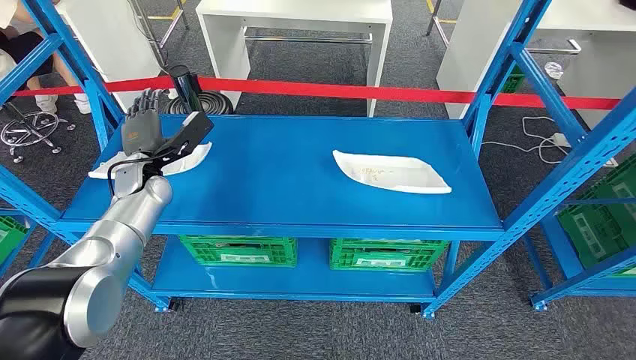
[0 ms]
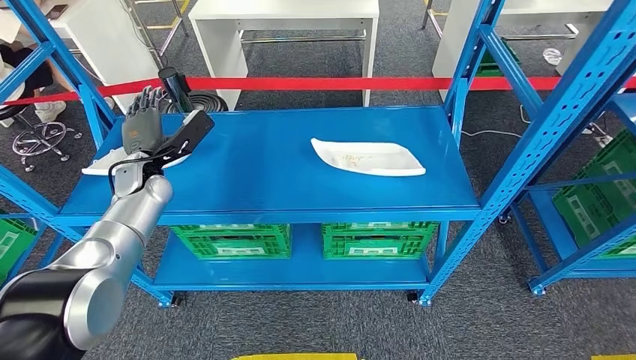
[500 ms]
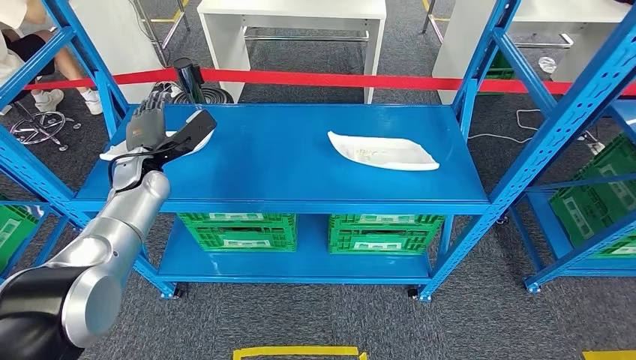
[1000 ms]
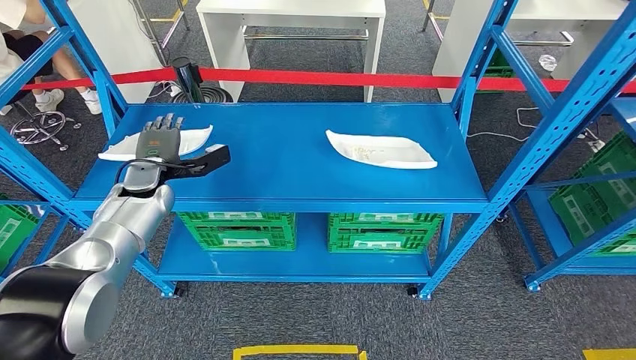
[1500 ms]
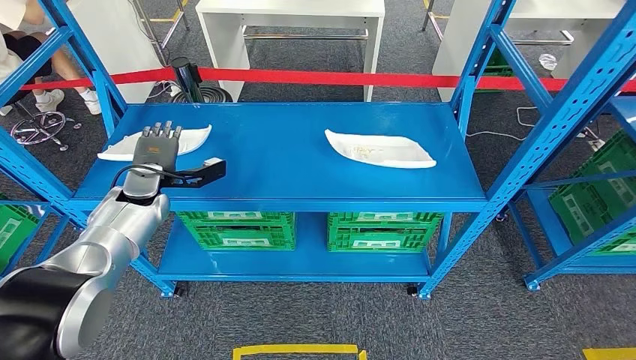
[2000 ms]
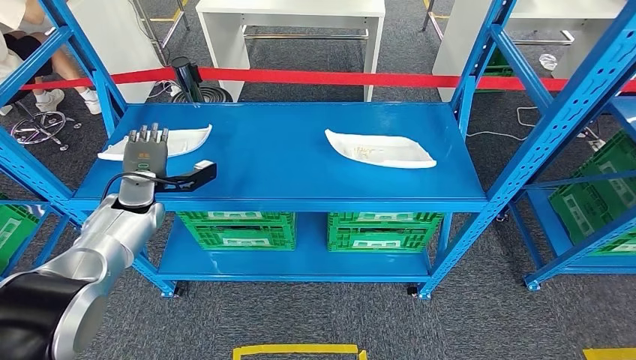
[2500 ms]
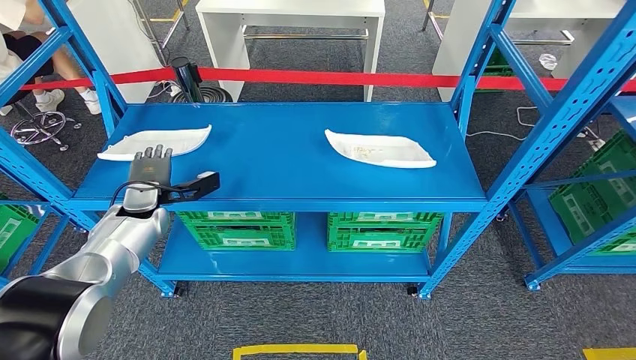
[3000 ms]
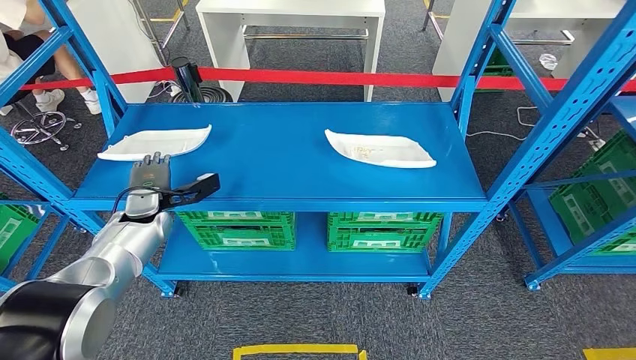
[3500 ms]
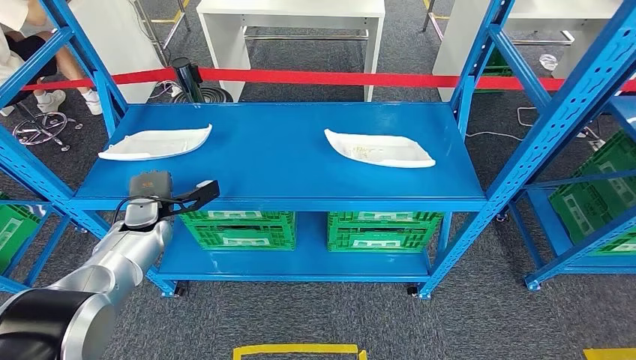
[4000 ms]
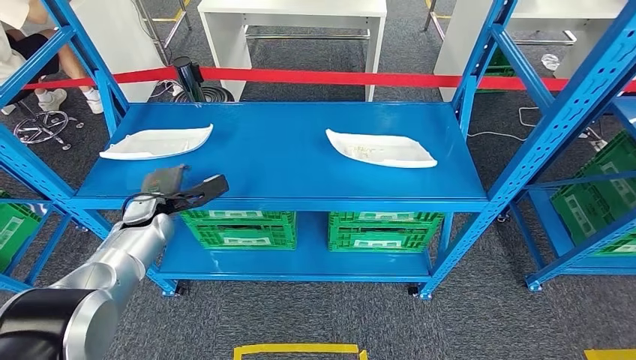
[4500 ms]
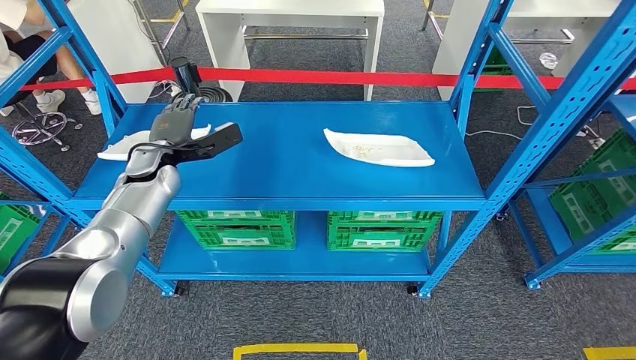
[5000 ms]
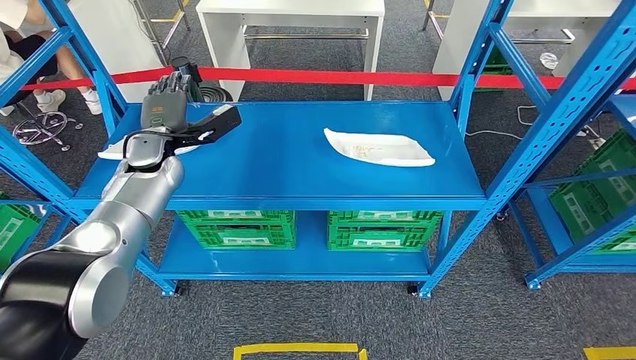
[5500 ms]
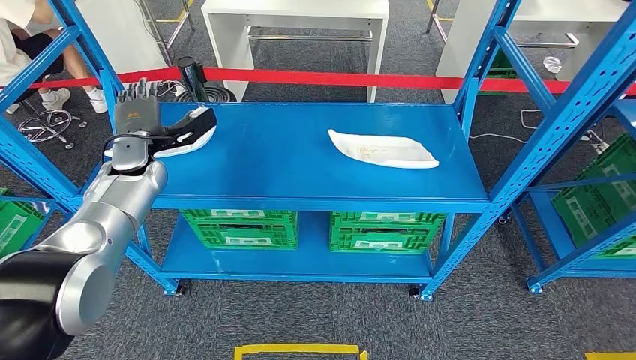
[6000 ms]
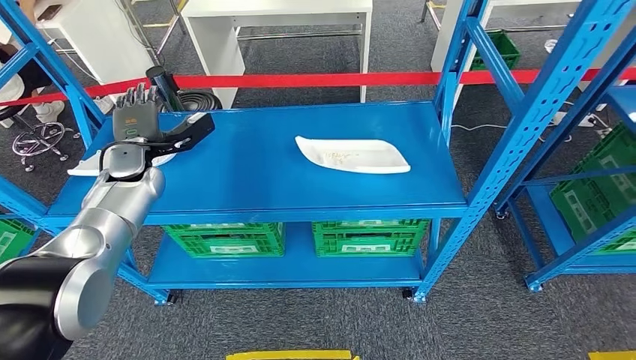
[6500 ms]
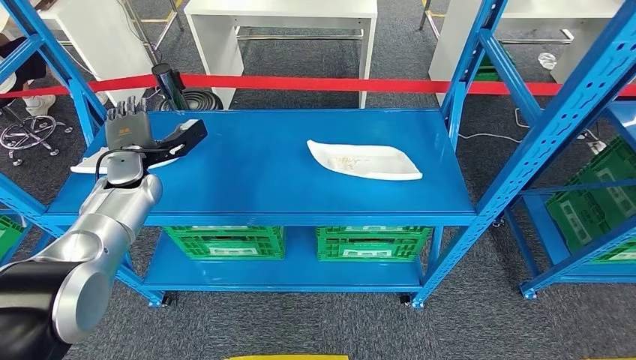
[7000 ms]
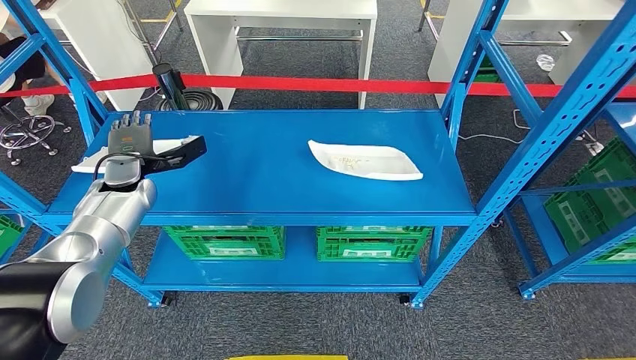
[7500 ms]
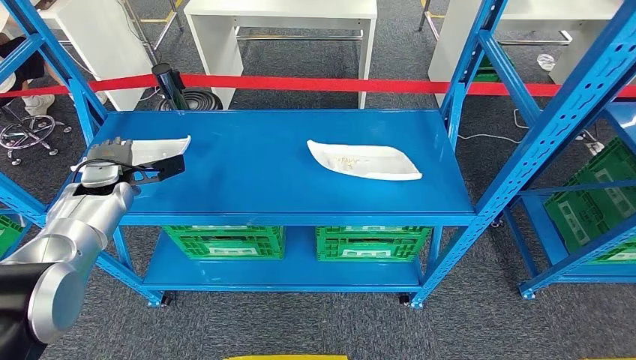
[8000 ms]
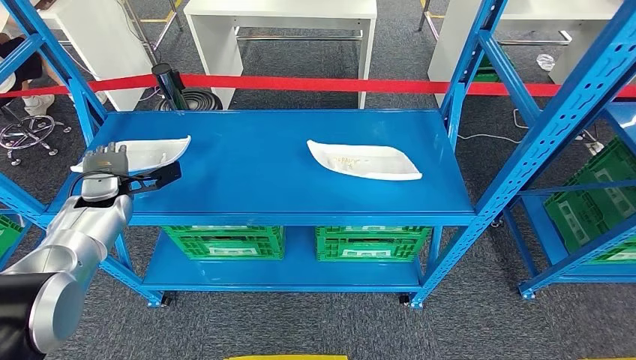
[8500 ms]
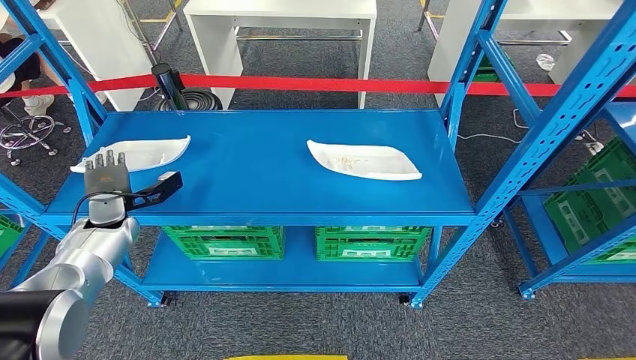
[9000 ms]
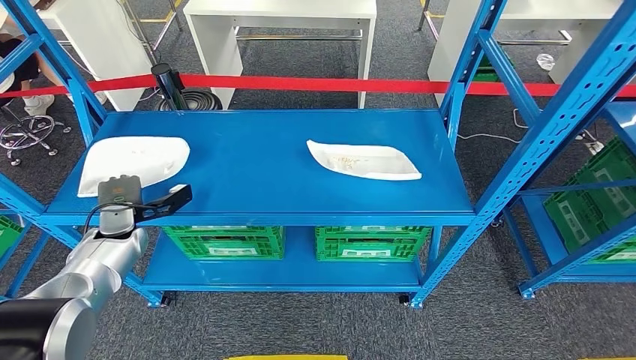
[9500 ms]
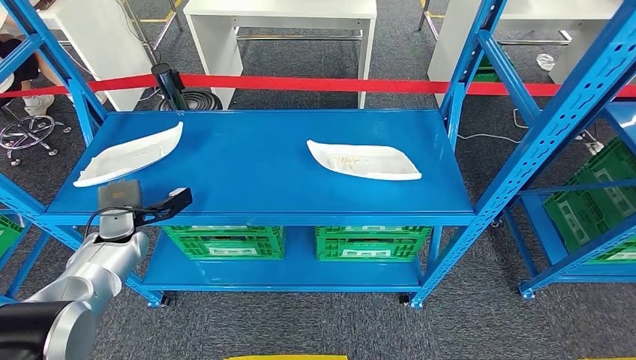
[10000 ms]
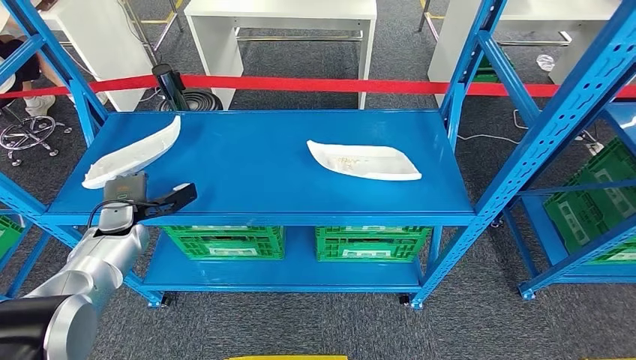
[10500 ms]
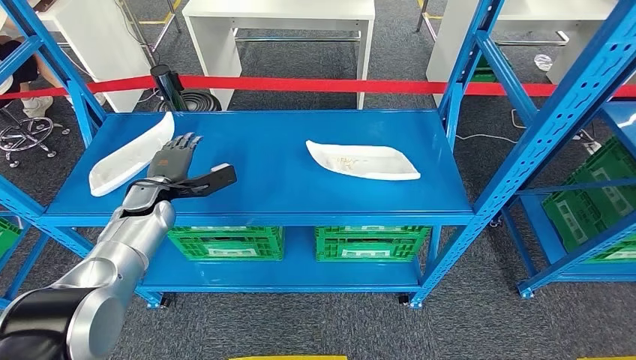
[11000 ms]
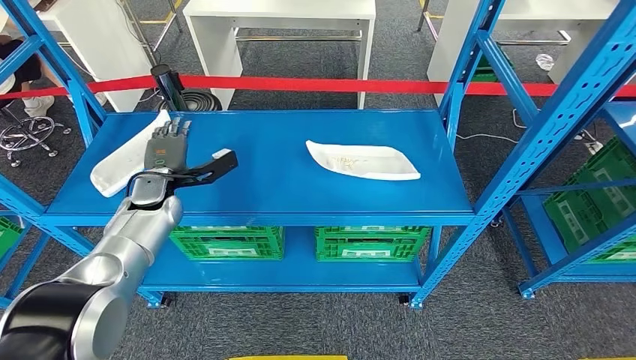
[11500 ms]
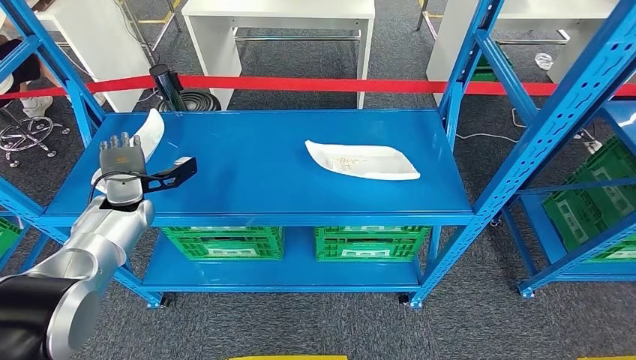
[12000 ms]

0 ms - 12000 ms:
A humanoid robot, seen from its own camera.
2000 ms - 4000 ms: The left hand shifts about 5 cm downward.
8000 ms - 10000 ms: The left hand goes roughly 10 cm downward and backward.
10000 ms - 12000 ms: The left hand goes approximately 5 cm upward, and travels to the right and back again, roughly 10 cm each way.

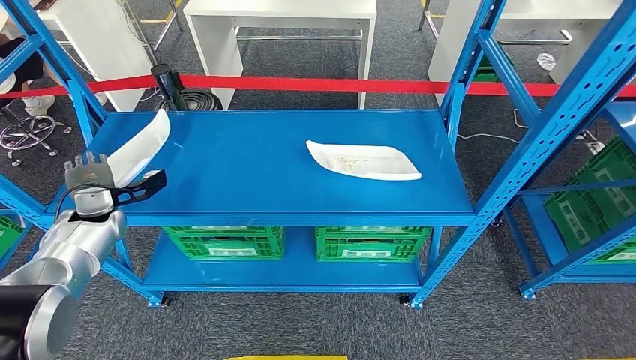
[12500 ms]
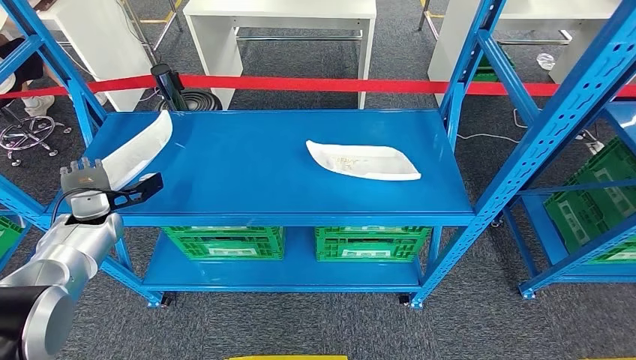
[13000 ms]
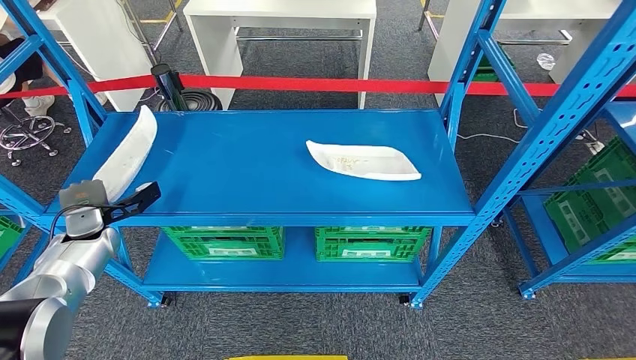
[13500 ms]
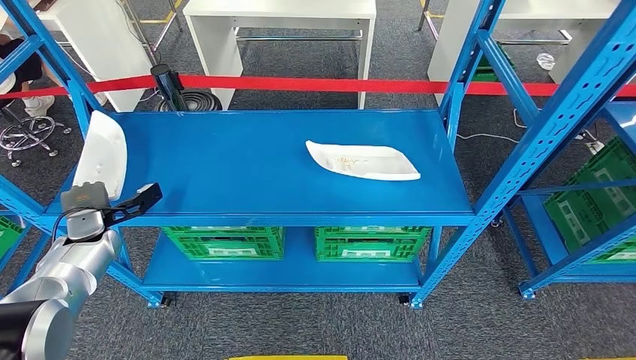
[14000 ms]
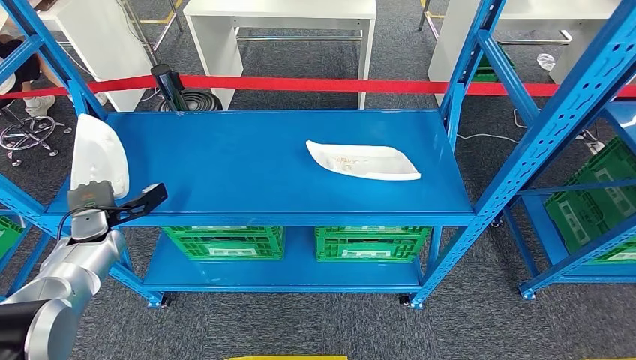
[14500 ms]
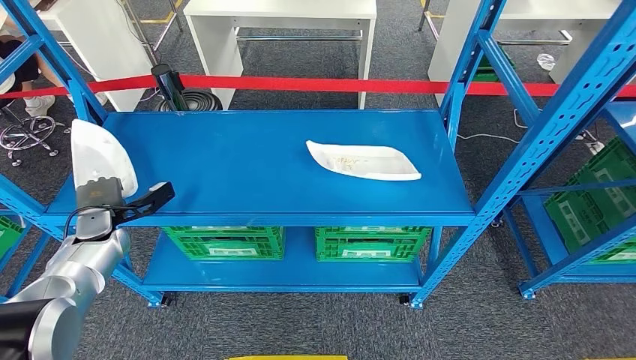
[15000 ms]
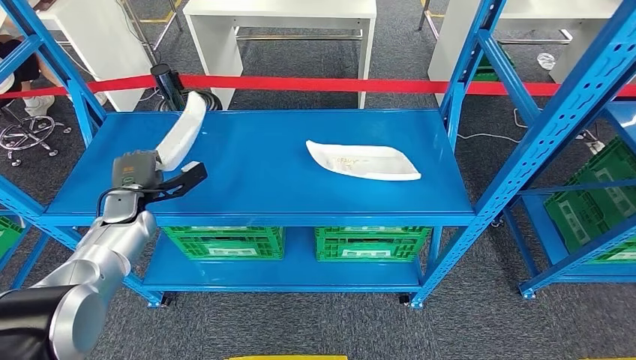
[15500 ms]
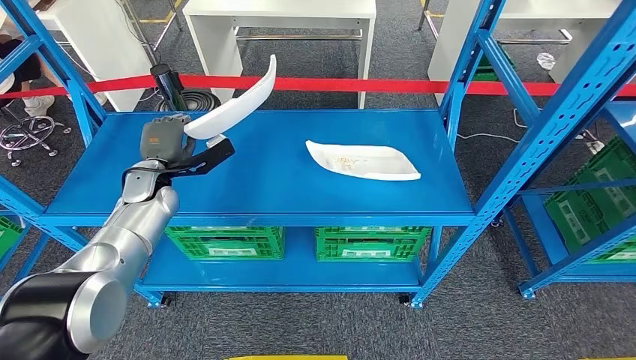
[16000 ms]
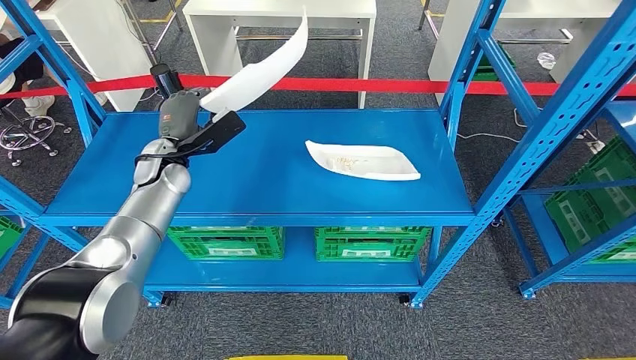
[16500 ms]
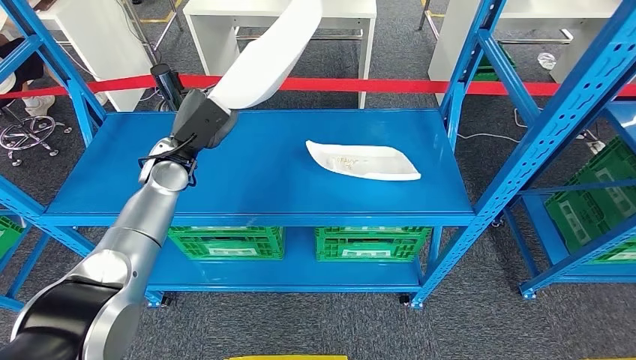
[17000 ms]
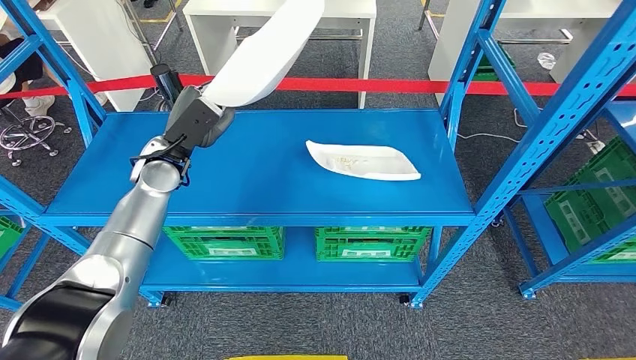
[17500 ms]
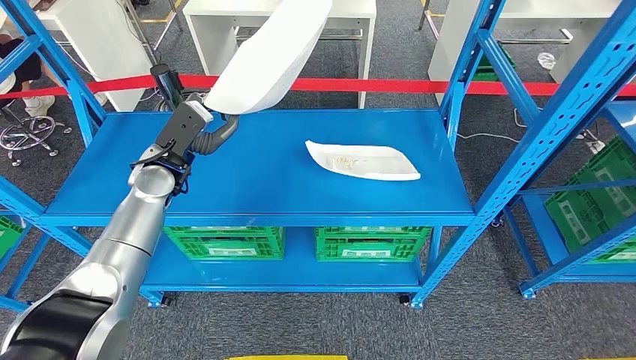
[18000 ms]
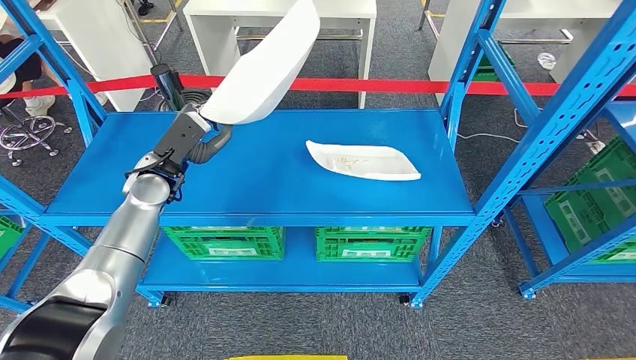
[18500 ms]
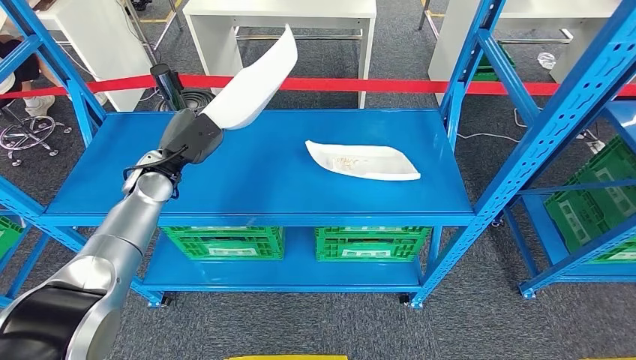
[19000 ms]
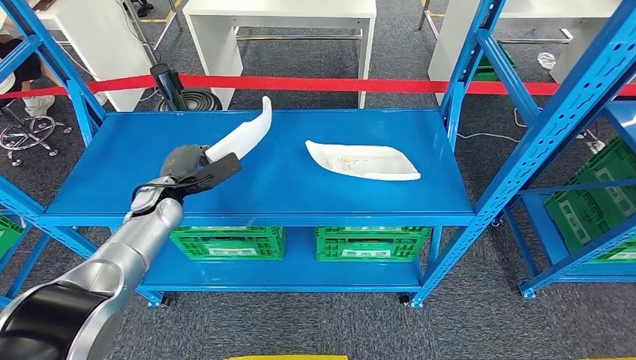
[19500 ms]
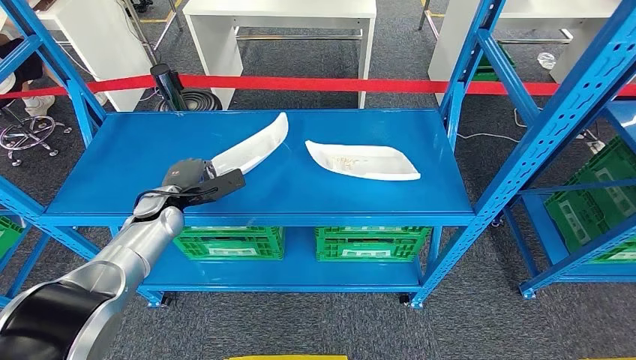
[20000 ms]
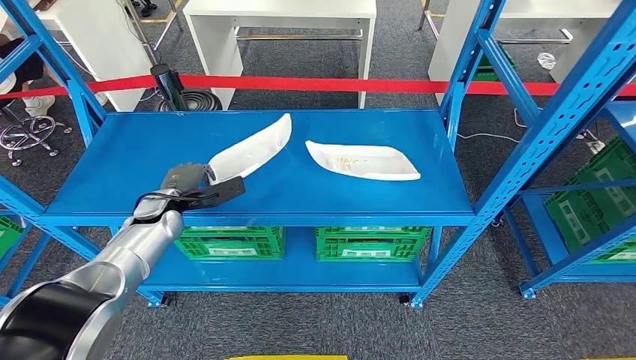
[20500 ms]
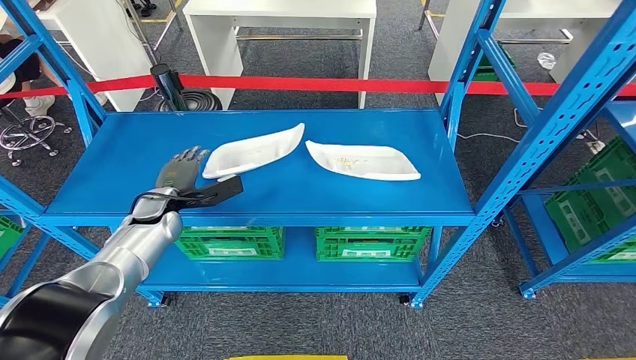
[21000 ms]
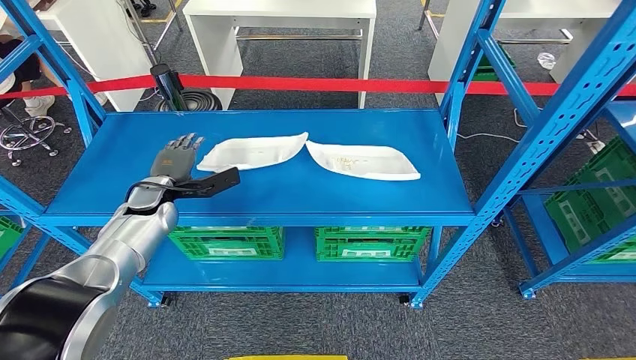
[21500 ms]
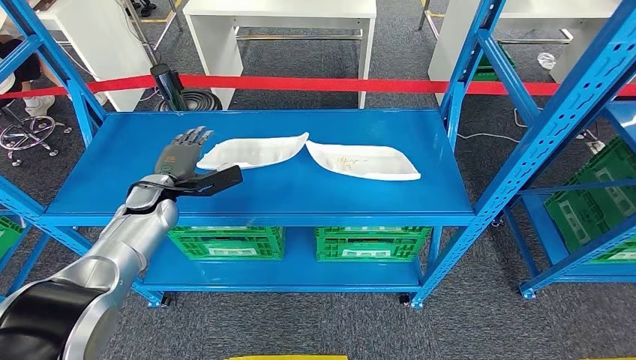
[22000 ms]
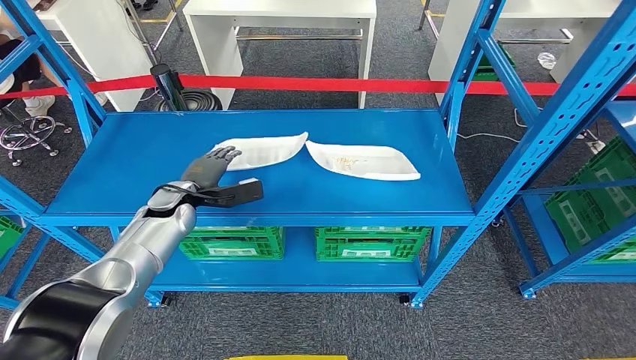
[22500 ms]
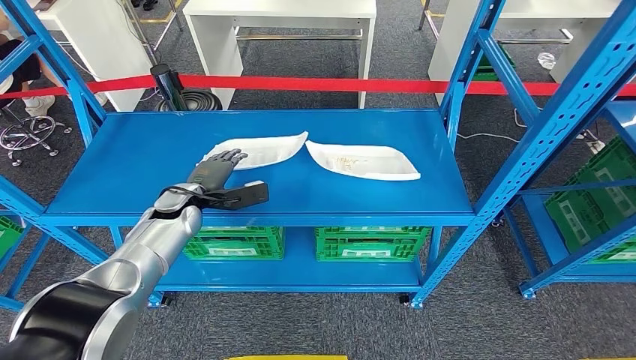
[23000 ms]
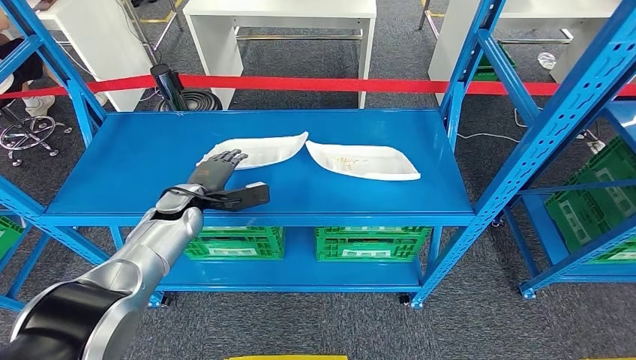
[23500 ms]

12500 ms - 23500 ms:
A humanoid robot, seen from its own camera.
12500 ms - 14500 ms: The hands move only a little.
14500 ms - 16000 ms: The left hand moves to the right, upward and forward, some 15 cm.
16000 ms - 18000 ms: The left hand shifts some 5 cm upward.
18000 ms - 20000 ms: The left hand shifts about 10 cm downward.
20000 ms - 21500 ms: The hands make only small movements.
21500 ms - 23500 ms: The left hand shifts about 5 cm to the right.
